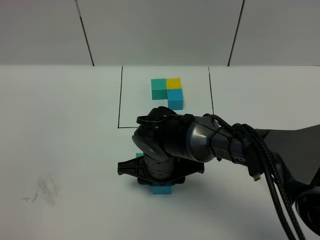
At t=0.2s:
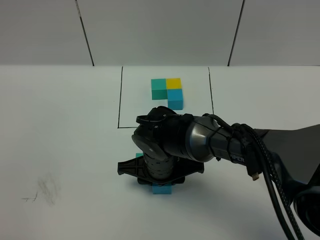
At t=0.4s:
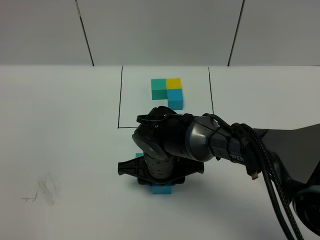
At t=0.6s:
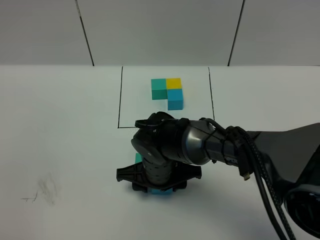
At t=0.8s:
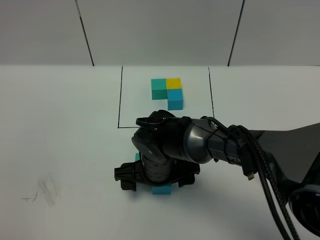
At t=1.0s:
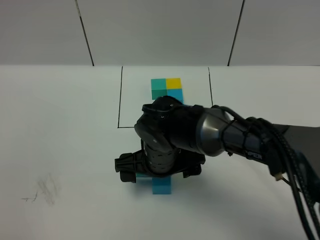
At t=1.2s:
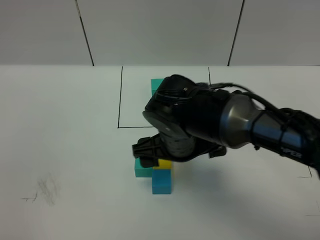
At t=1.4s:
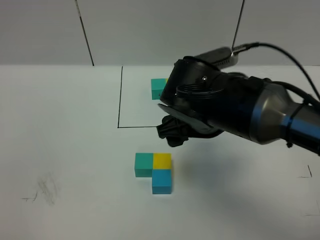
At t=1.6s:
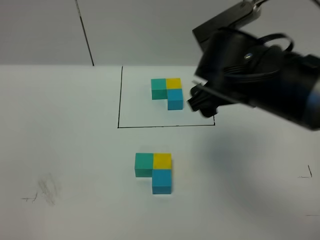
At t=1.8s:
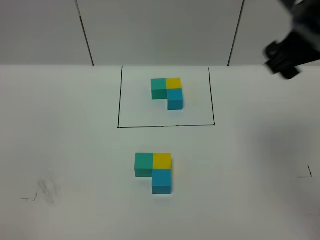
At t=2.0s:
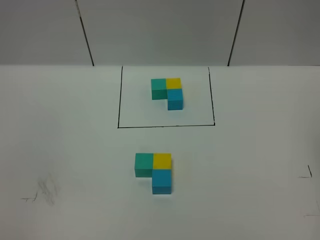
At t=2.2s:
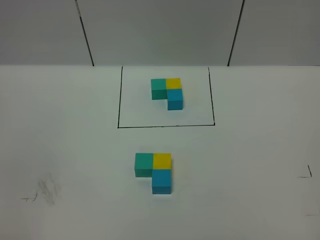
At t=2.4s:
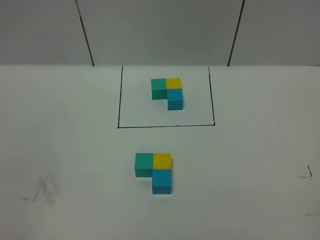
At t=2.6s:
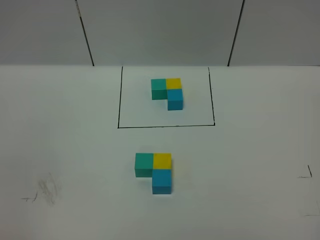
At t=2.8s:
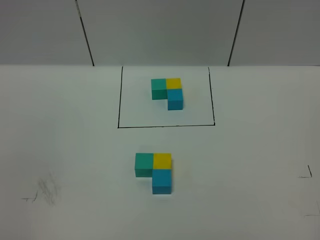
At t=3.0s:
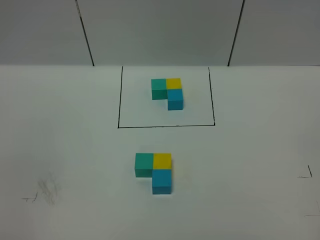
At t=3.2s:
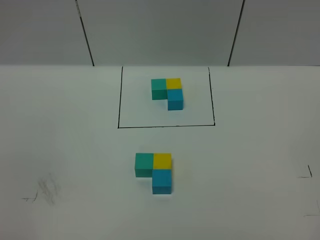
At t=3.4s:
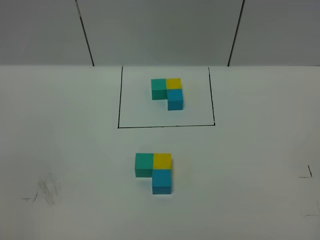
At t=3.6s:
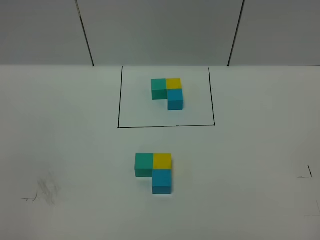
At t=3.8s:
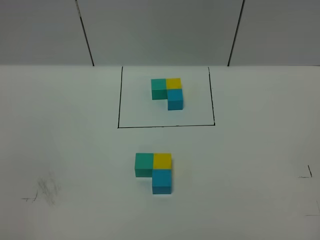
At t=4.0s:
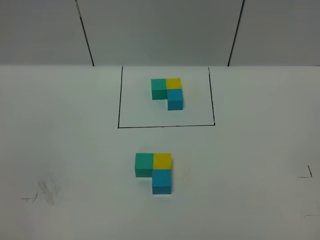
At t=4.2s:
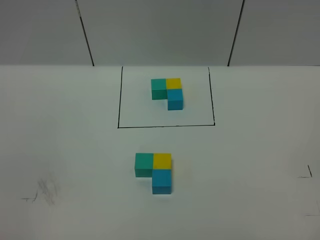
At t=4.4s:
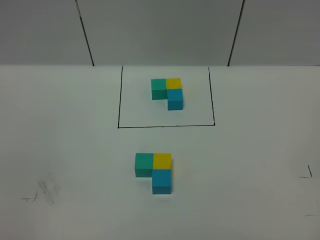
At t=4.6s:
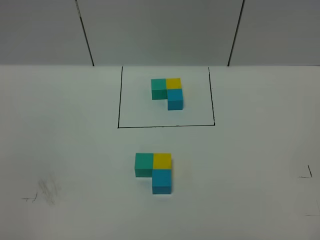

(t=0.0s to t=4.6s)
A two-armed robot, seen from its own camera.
Task of the whole recording: According to the building block template in front, assemble the scattered blocks together.
t=0.0s - t=1.6s: The right gripper heads upward and to the right, covering roughly 25 cm, and opens up.
t=1.6s - t=3.0s: The right gripper heads backward and to the right, covering about 35 cm.
